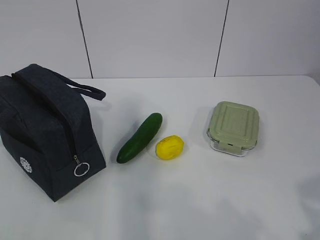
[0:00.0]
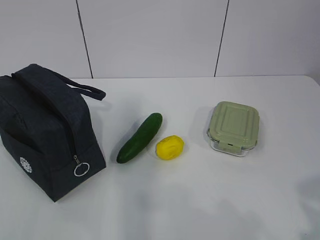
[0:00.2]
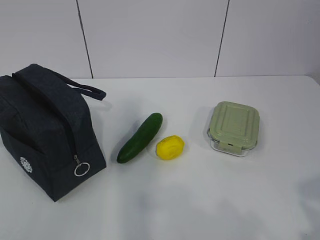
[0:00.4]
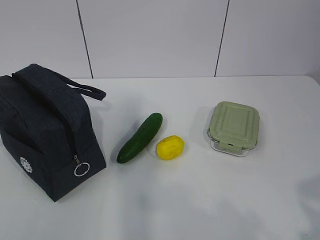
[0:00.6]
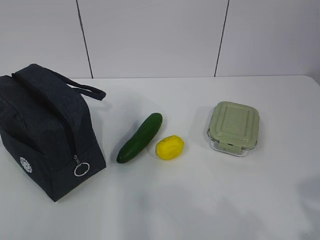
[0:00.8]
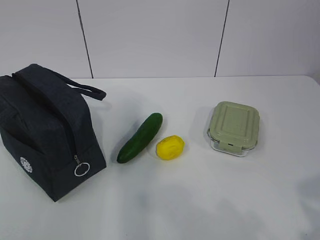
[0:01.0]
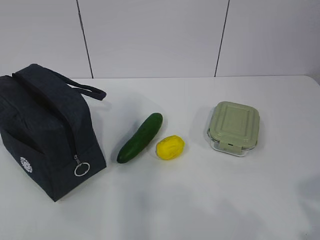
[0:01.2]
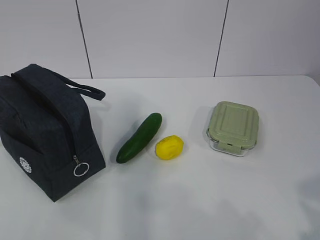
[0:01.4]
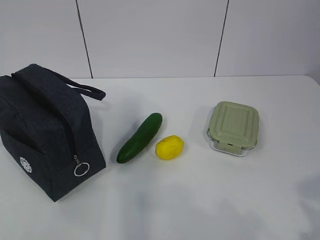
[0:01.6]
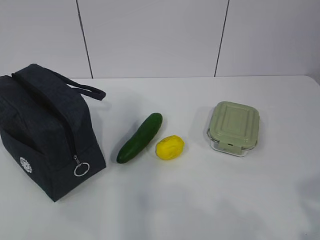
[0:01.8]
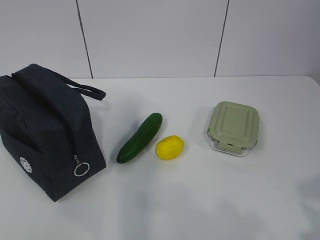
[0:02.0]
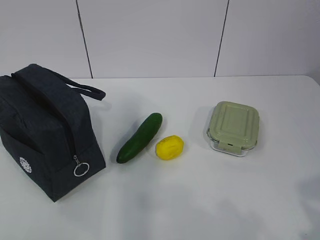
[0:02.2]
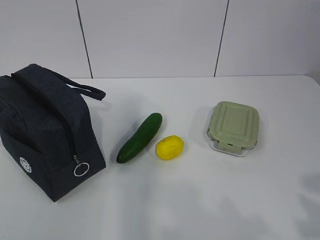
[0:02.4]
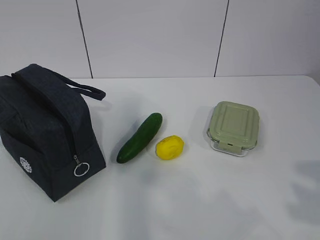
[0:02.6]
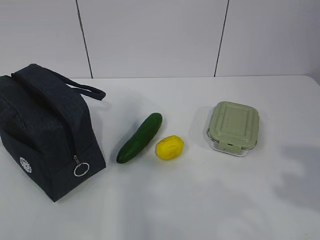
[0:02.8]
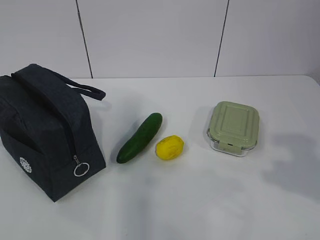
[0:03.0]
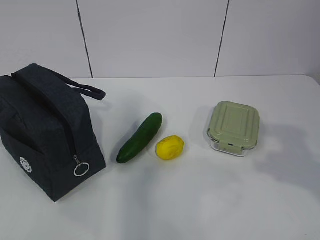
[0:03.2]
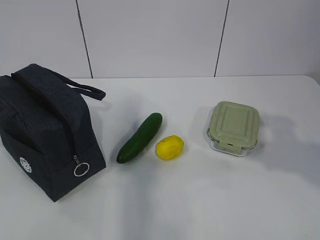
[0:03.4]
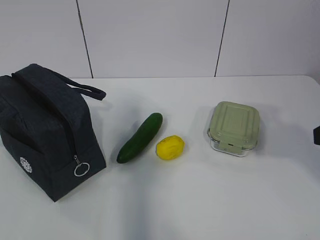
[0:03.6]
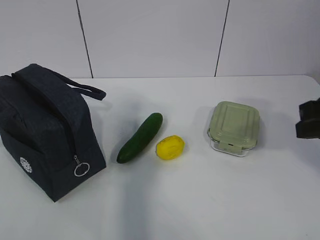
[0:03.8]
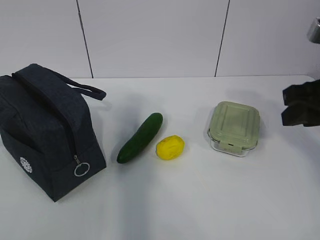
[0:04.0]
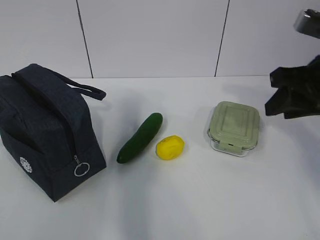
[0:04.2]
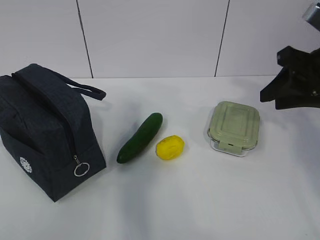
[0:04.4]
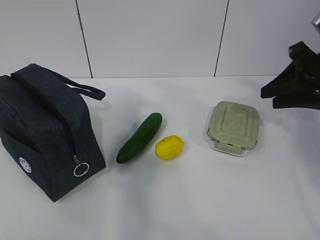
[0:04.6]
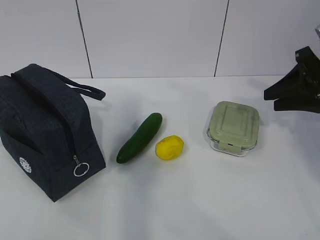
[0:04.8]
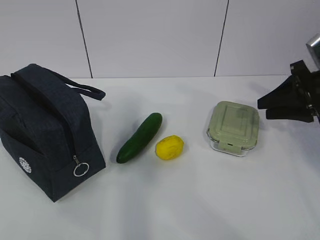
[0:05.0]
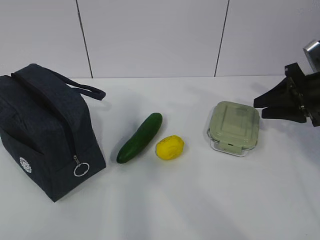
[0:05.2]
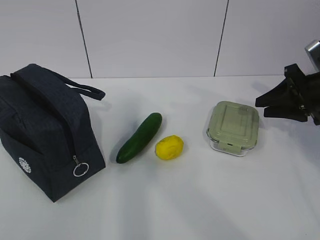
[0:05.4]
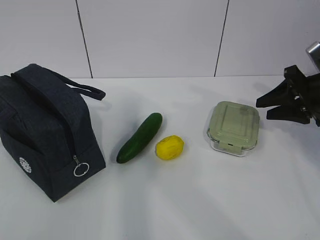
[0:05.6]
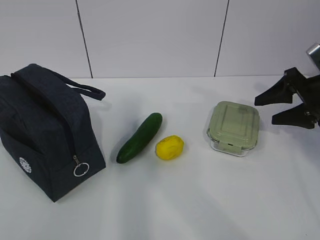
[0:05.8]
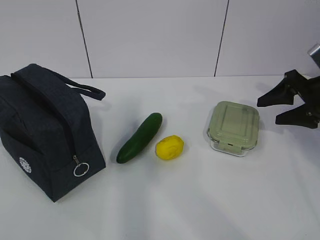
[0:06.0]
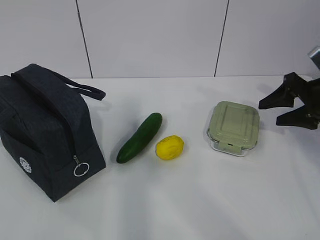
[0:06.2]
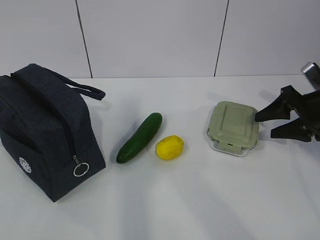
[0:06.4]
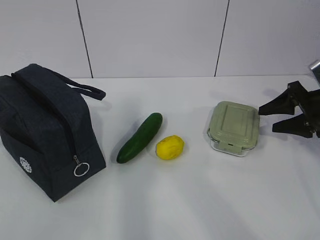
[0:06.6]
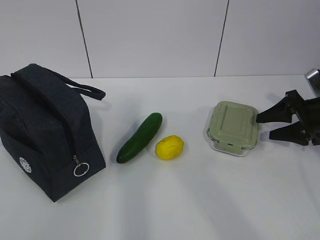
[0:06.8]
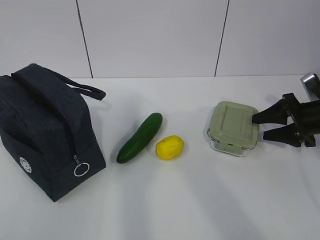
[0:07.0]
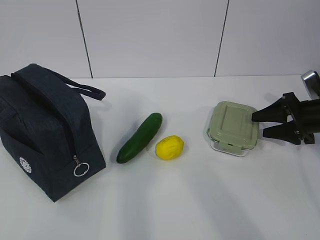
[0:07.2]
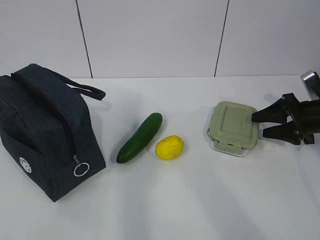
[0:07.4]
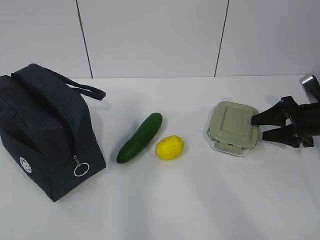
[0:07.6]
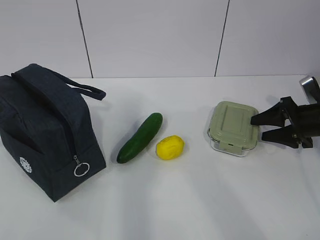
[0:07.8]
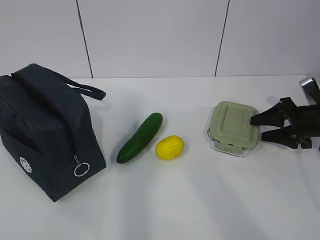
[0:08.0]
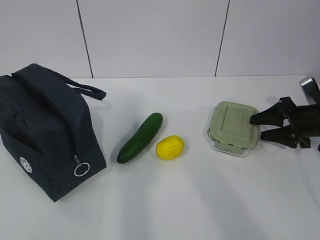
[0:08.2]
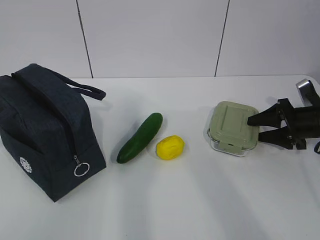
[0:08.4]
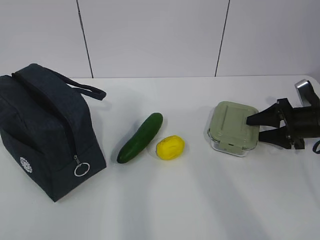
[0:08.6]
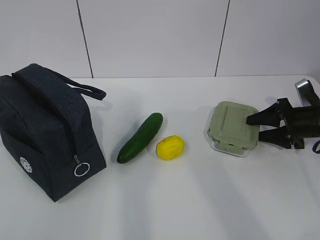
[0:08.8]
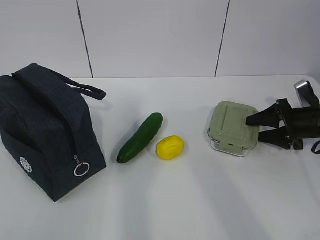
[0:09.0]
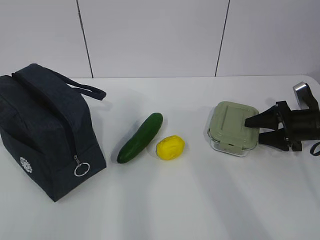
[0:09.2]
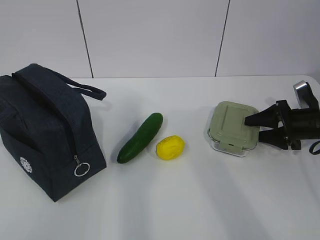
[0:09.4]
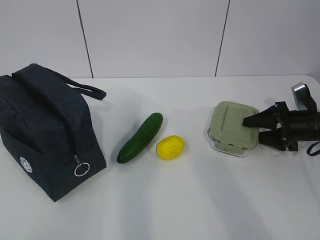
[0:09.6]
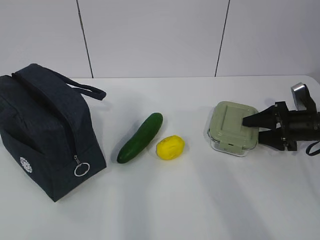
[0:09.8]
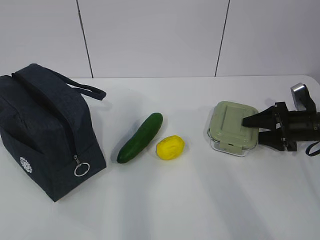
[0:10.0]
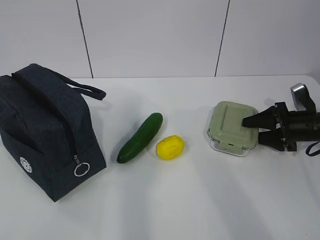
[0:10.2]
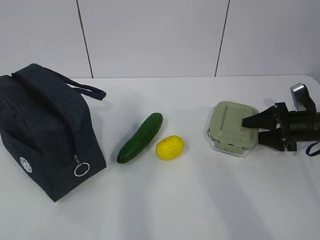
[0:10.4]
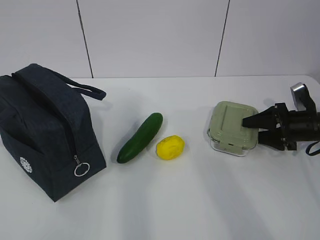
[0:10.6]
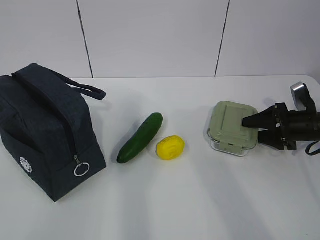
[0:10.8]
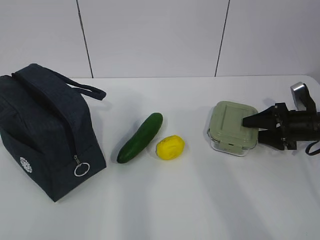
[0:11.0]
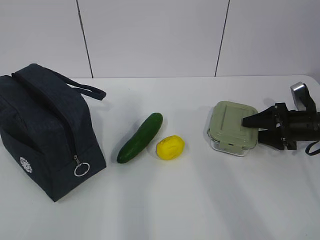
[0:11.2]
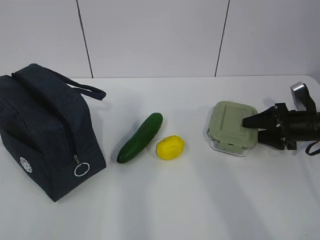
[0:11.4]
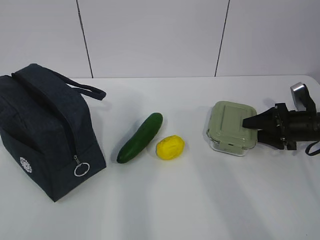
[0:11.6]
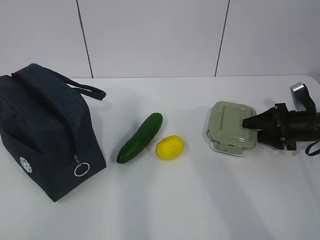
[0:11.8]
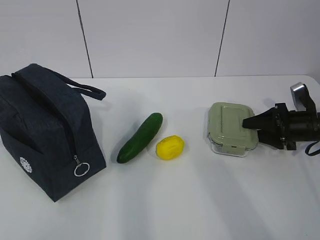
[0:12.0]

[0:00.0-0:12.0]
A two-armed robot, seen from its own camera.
Step, 0:00.0 to 0:11.8: Grab the lunch box with your right hand.
0:03.0 to 0:04.4: The right gripper shifts about 20 cm forward.
0:04.4 to 0:06.0: The right gripper is displaced downward, to the right and forward by roughly 15 cm, and opens its fingers.
0:06.0 to 0:07.6: The right gripper travels downward by roughly 10 cm.
0:07.6 to 0:09.0: There are only small adjustments of the grippers.
0:09.0 to 0:10.4: Both grippers stay put.
0:10.4 to 0:12.0: The two grippers keep their place.

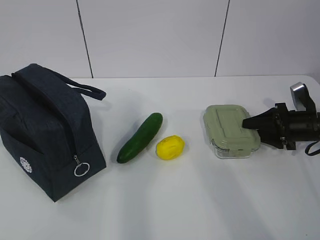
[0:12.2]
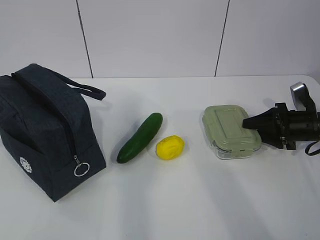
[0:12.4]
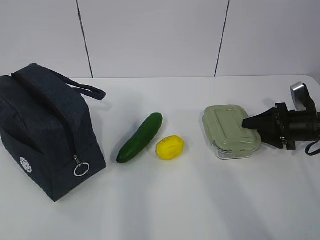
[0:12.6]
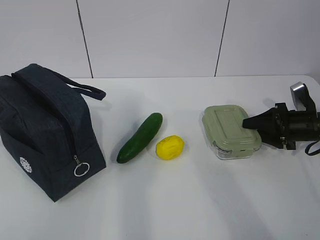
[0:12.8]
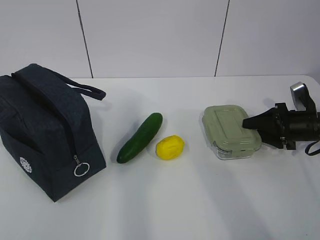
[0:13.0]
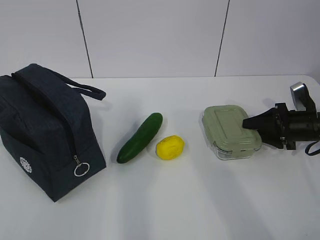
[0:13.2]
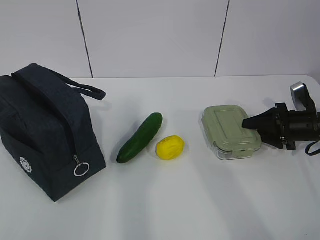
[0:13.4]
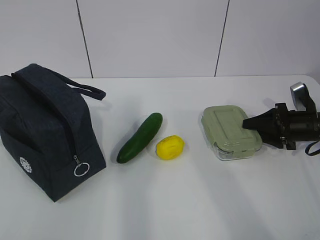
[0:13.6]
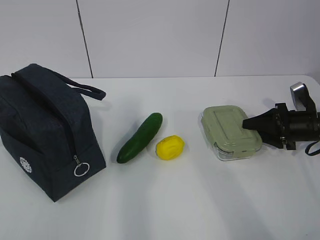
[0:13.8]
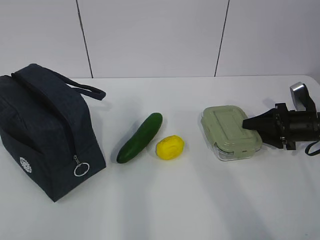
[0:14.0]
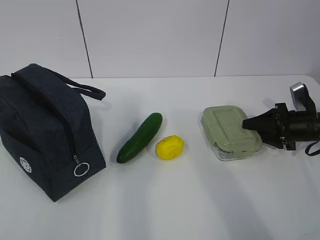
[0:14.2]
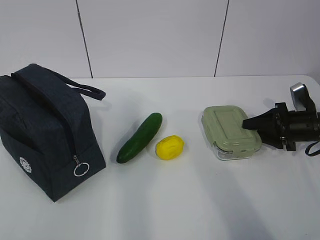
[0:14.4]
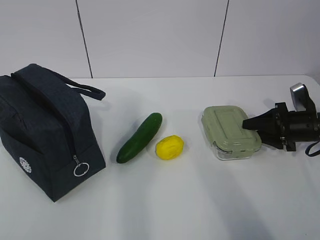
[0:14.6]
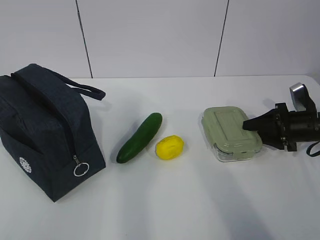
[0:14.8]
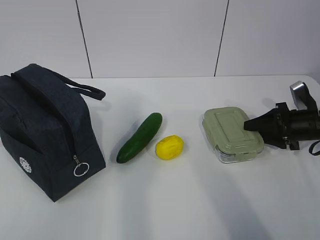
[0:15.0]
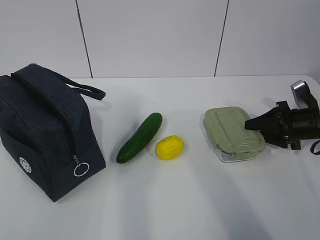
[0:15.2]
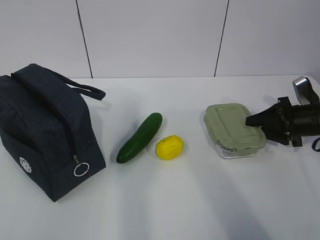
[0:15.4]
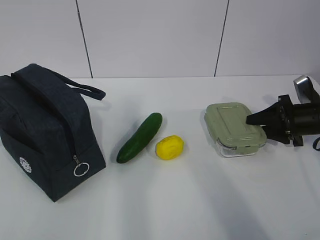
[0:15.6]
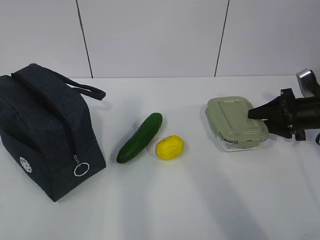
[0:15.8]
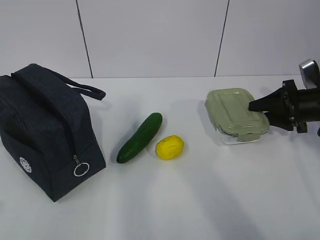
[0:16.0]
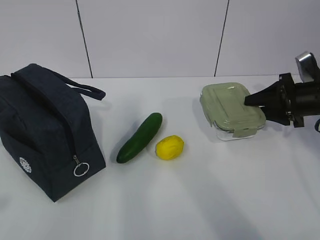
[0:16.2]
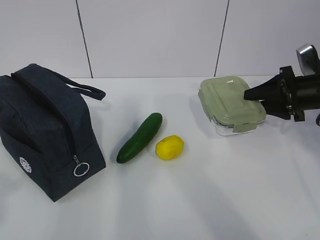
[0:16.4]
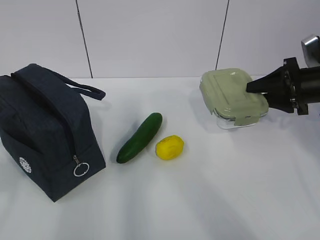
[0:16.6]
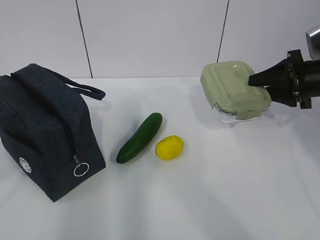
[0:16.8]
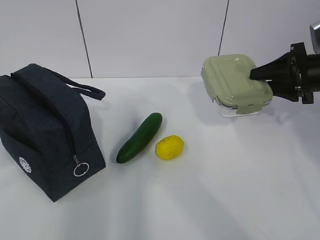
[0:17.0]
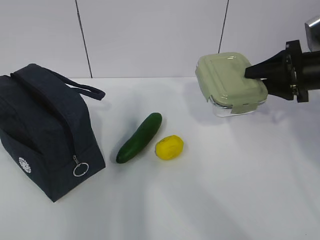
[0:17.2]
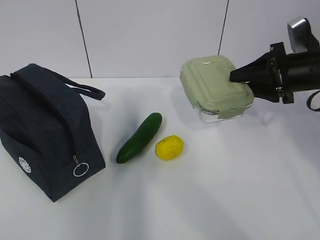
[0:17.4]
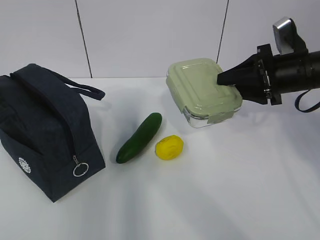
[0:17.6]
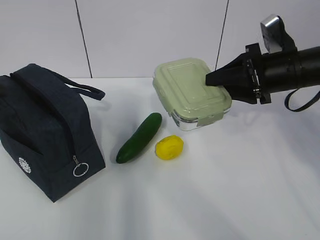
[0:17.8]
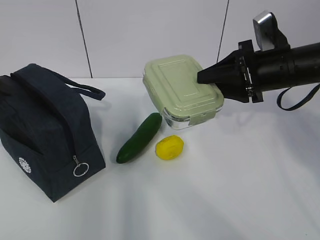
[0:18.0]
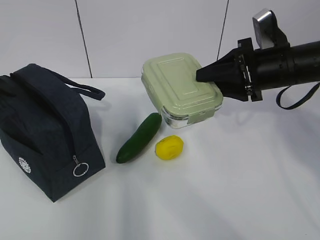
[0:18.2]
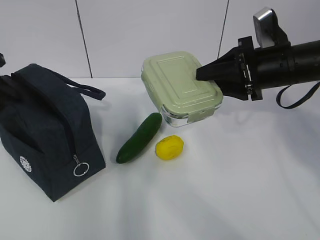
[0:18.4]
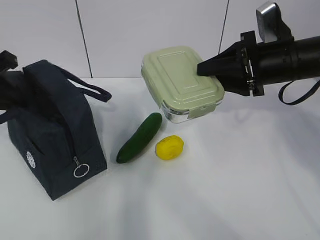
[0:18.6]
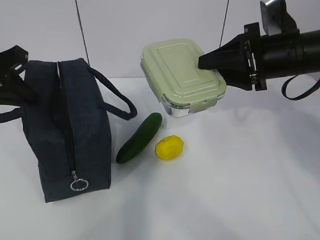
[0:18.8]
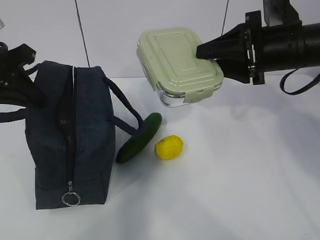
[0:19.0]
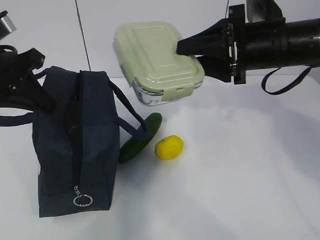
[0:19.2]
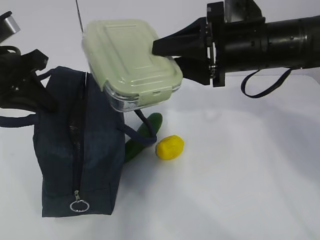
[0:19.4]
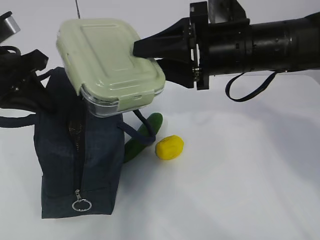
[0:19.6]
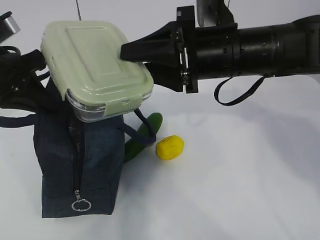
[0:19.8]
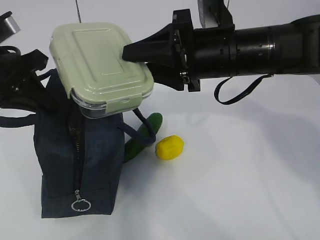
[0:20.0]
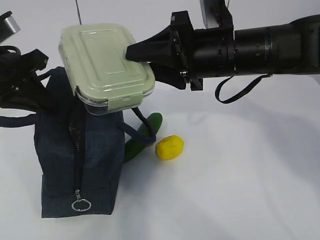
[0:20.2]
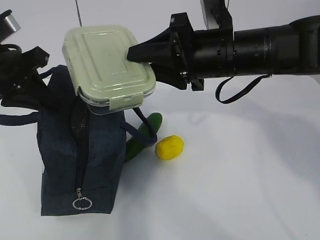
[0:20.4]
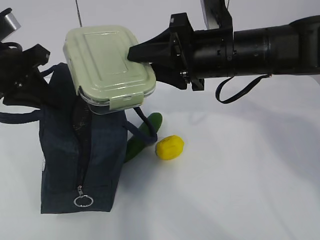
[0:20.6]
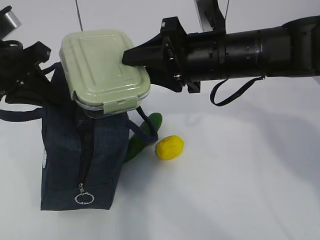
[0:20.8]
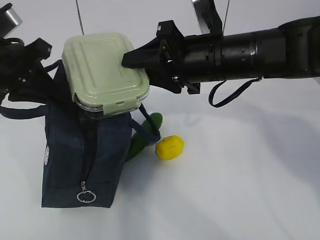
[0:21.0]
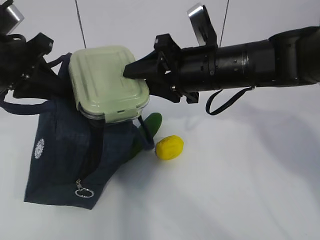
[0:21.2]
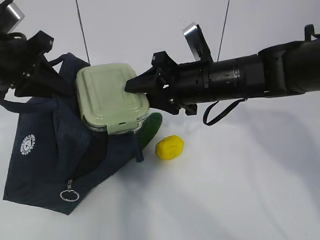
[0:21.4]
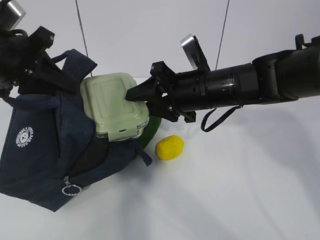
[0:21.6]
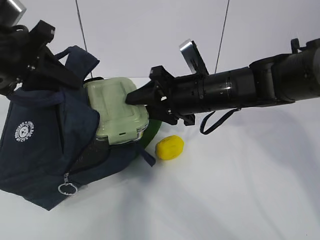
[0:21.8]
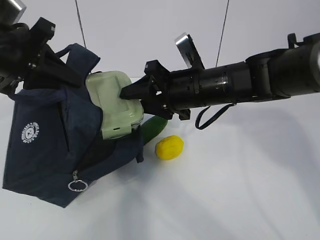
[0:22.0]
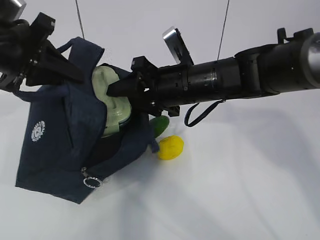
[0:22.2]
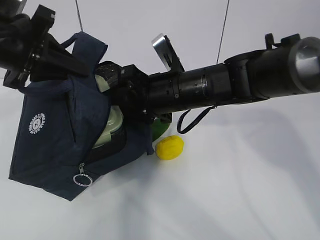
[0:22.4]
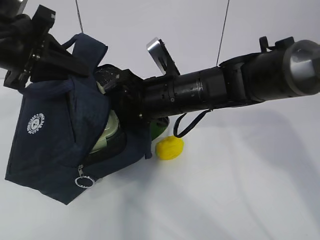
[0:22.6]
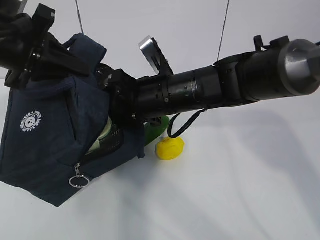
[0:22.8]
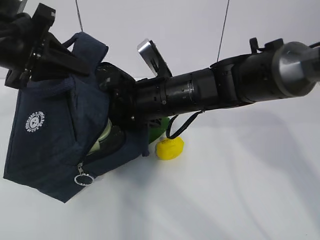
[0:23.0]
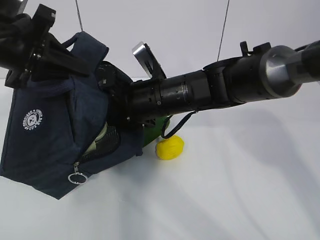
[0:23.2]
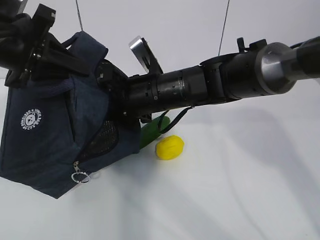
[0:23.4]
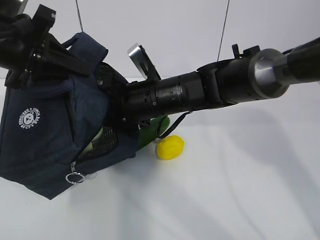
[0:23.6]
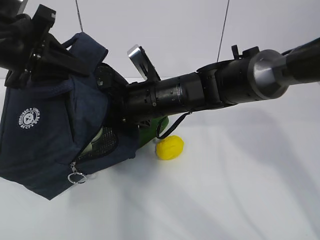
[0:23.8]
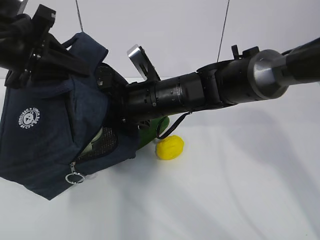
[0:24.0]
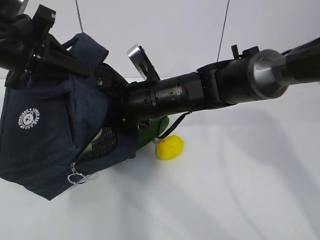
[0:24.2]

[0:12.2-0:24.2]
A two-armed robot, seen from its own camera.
Step, 0:12.2 to 0:17.6: Grab the lunch bag with your left hand.
Step, 0:17.8 to 0:21.4: Place it into the bag with your right hand.
0:12.2 to 0:15.2: Both grippers stay put.
0:15.2 to 0:16.6: The right gripper heads upward, covering approximately 10 cm. Meanwhile the left gripper moves forward, approximately 5 cm.
0:16.6 to 0:18.2: The right gripper is displaced to the left by some 10 cm; the left gripper goes roughly 20 cm forward.
0:18.2 to 0:19.8: The right gripper travels to the left by approximately 10 cm. The left gripper travels to the right by some 5 cm, and closes its fingers.
0:21.2 to 0:22.6: The right gripper is displaced to the left by roughly 5 cm.
0:22.6 to 0:24.2: The grippers make only small movements.
